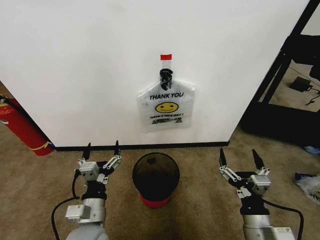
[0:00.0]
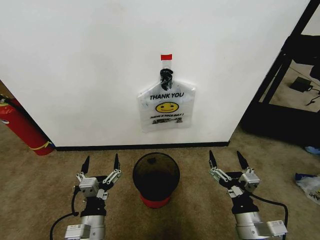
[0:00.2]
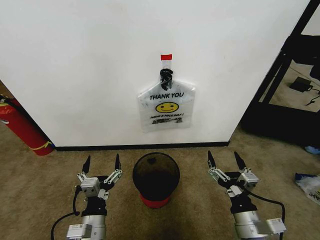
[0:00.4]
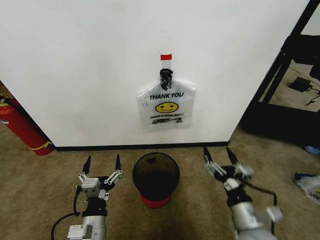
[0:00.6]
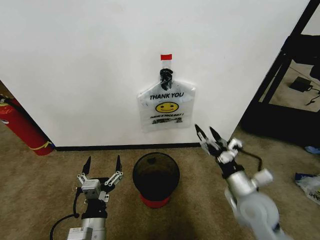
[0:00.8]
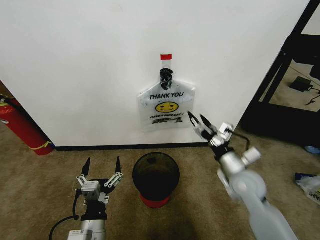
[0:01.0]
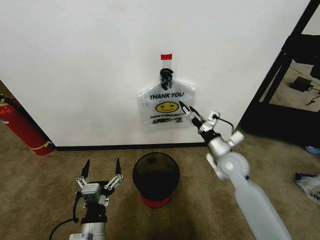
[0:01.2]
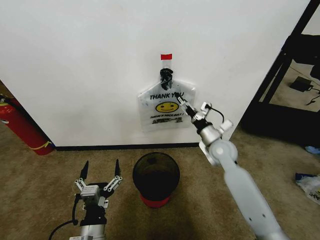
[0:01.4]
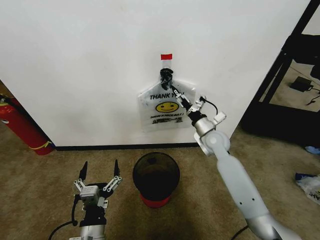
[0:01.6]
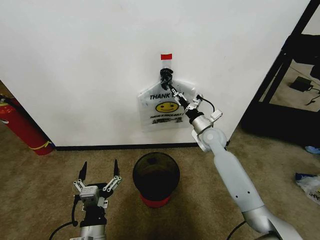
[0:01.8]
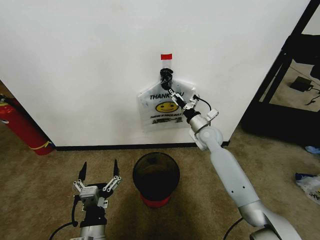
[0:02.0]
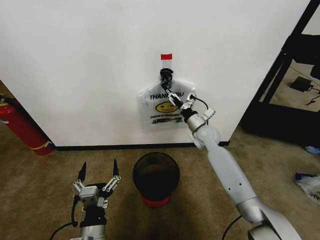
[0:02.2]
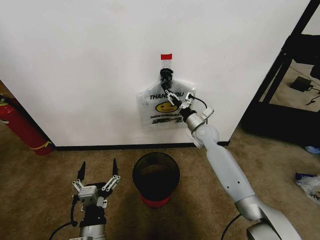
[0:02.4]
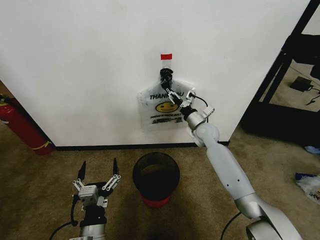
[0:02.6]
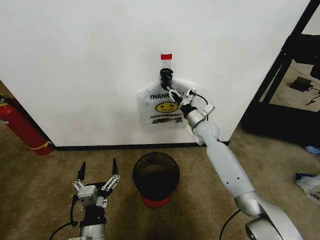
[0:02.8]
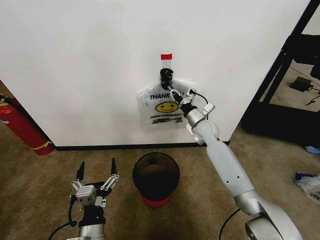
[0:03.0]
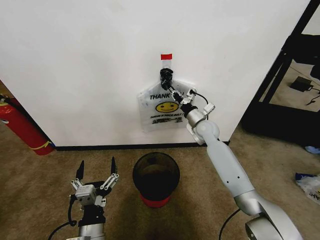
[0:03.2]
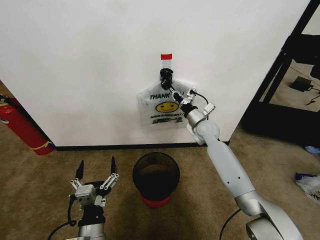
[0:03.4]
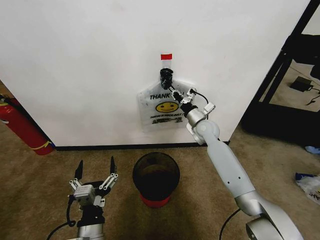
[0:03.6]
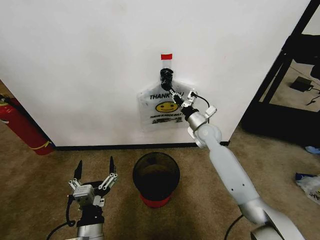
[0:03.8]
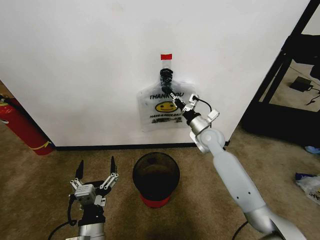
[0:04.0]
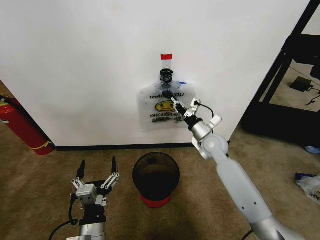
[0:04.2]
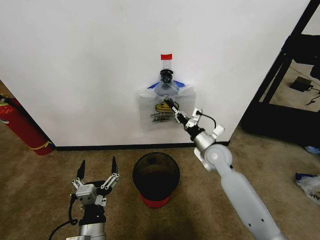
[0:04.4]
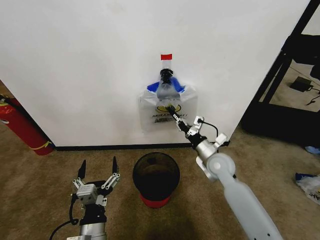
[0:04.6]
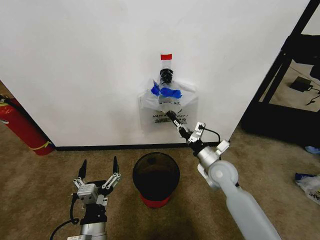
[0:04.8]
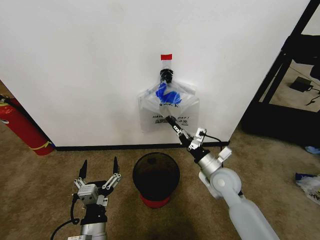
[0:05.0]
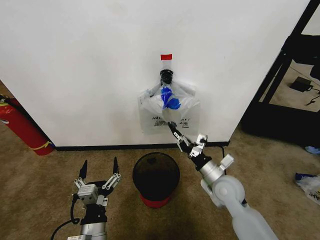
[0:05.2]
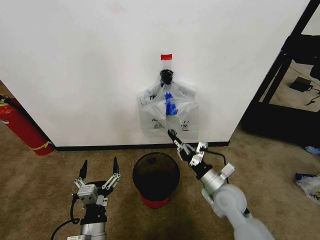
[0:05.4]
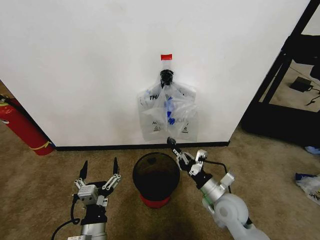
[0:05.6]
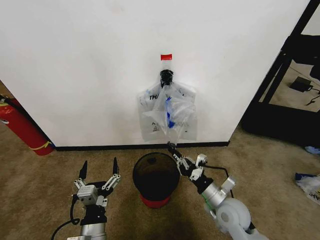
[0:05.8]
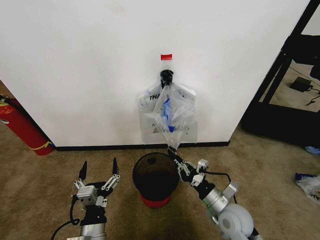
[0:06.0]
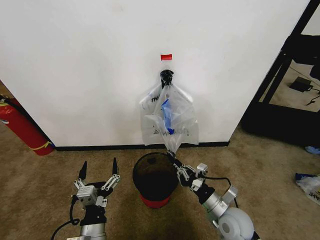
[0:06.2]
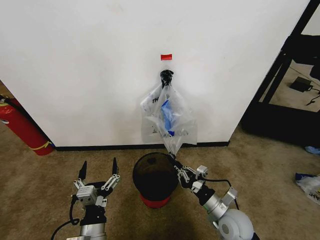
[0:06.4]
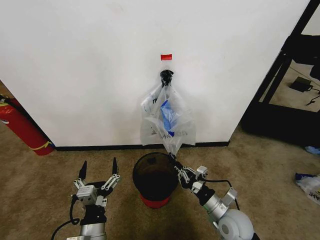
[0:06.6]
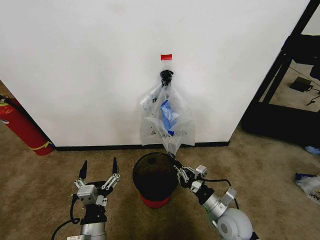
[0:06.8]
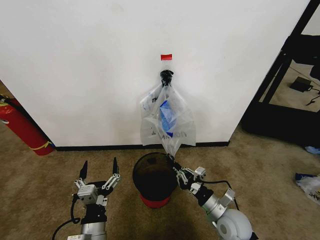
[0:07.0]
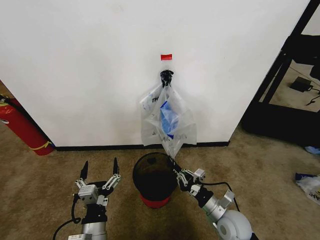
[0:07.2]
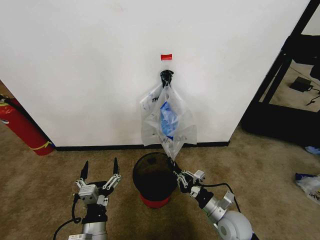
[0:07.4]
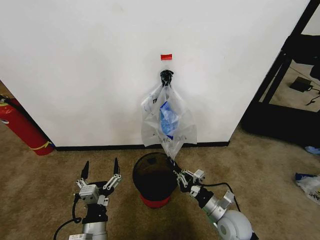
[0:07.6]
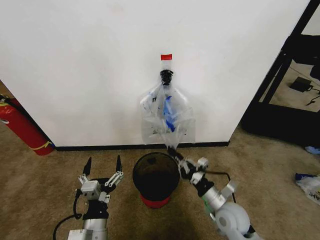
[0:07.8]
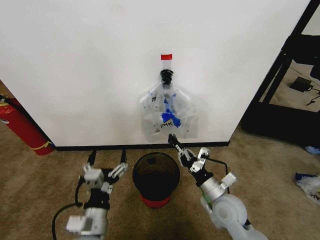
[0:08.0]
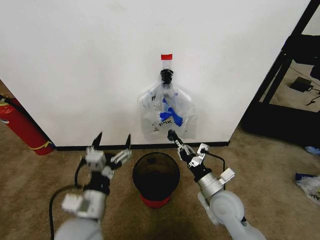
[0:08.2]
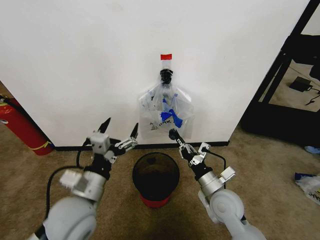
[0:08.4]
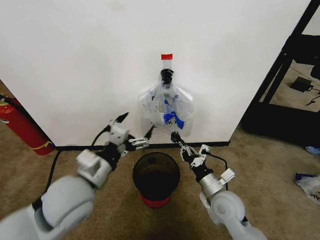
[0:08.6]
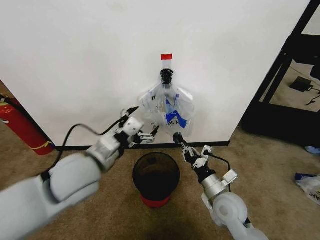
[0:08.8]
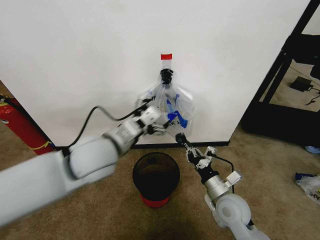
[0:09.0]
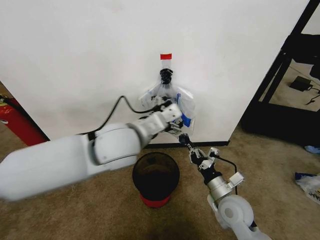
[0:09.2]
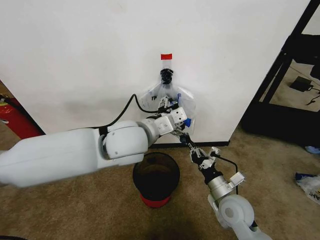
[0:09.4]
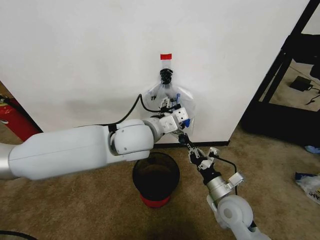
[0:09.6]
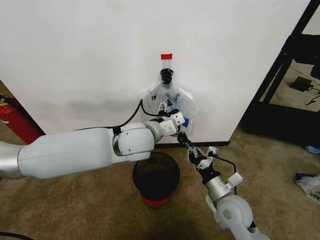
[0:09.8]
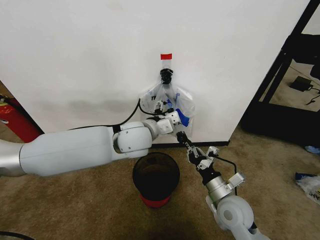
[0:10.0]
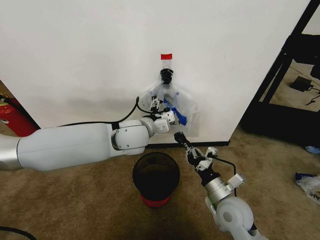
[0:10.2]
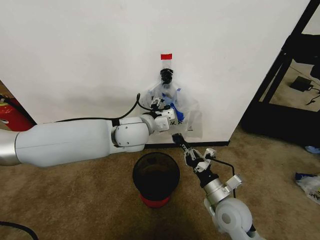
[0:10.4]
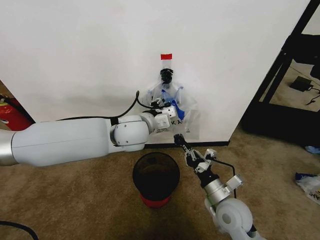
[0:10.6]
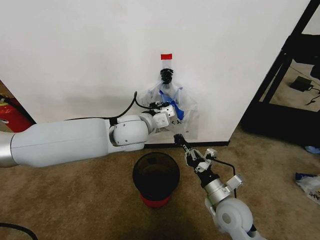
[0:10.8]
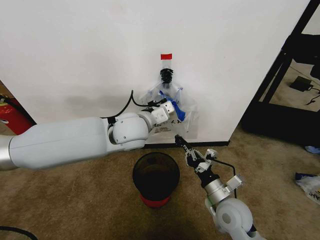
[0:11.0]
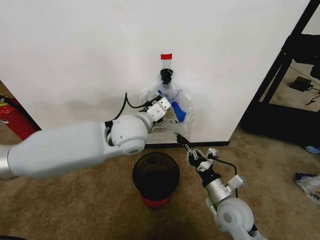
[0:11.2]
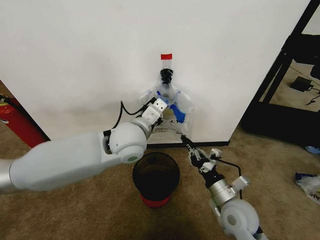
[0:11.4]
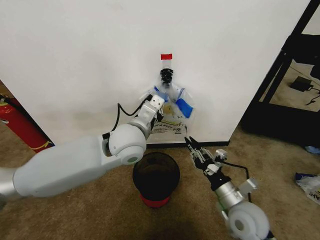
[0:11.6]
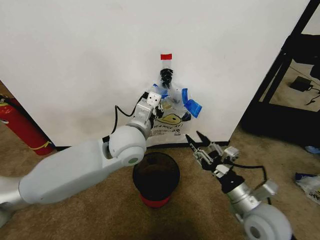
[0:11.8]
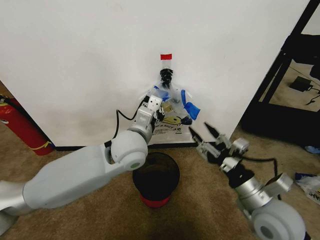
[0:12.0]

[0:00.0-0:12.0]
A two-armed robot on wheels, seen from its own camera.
Task of the whole recording: Pick up the garbage bag from the wall and place it over the trash bin.
0:01.6 to 0:03.0: The right gripper heads forward, covering approximately 5 cm, and closes.
0:03.0 to 0:04.4: The right gripper is displaced backward by approximately 10 cm.
0:04.4 to 0:06.0: The right gripper goes some 20 cm backward.
0:06.0 to 0:07.6: The grippers move only a little.
0:07.6 to 0:09.0: The left gripper moves upward and forward, some 30 cm. Meanwhile the right gripper is displaced upward by some 5 cm.
0:09.0 to 0:10.4: The left gripper shifts roughly 10 cm forward and to the right.
0:10.4 to 0:12.0: The right gripper heads upward and to the right, covering about 10 cm, and opens its fingers, while the left gripper moves approximately 5 cm, and closes.

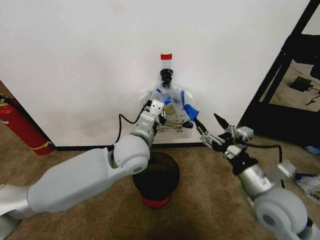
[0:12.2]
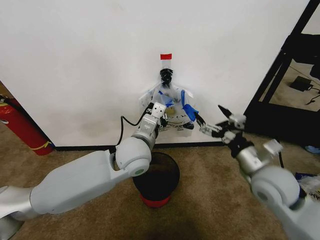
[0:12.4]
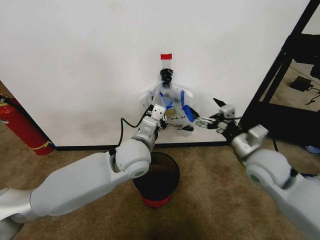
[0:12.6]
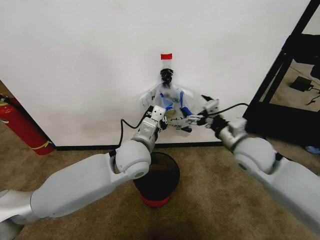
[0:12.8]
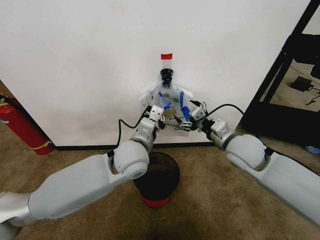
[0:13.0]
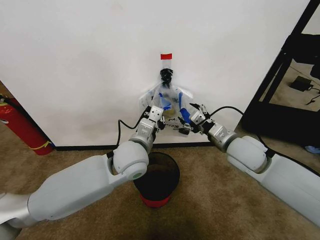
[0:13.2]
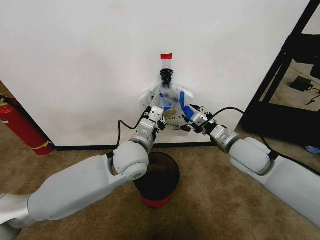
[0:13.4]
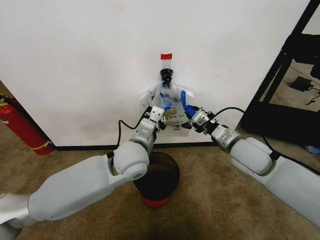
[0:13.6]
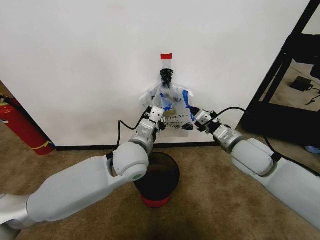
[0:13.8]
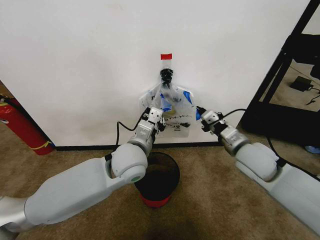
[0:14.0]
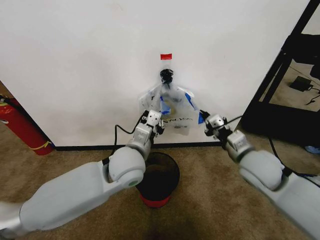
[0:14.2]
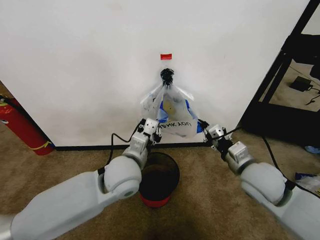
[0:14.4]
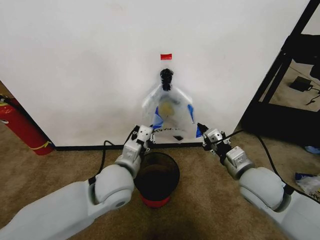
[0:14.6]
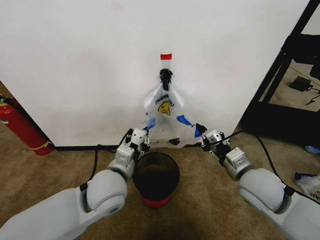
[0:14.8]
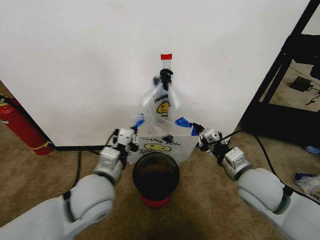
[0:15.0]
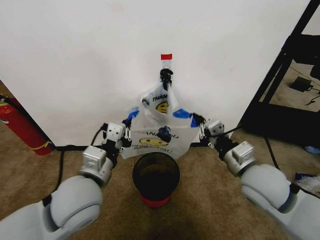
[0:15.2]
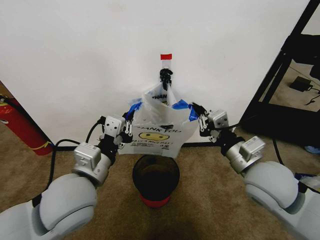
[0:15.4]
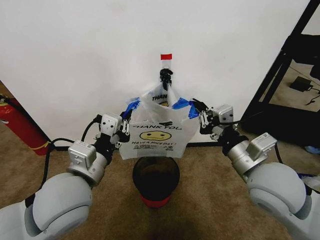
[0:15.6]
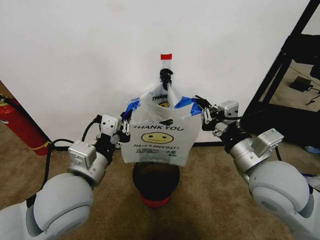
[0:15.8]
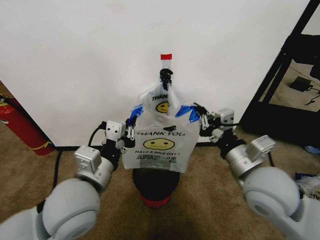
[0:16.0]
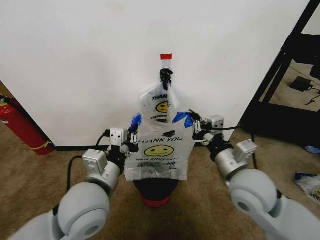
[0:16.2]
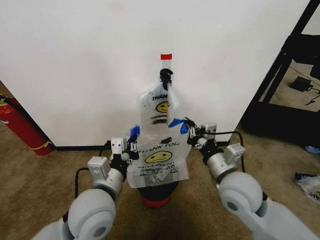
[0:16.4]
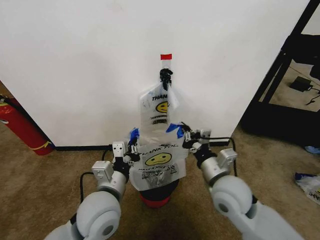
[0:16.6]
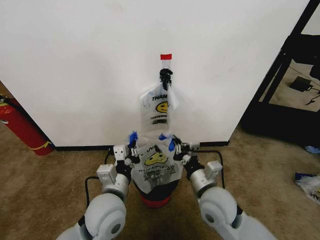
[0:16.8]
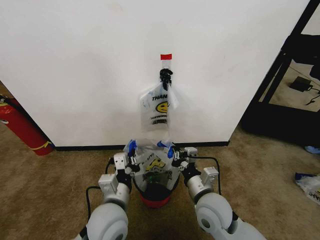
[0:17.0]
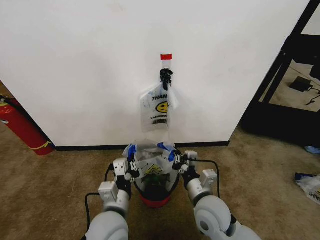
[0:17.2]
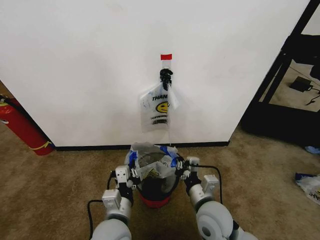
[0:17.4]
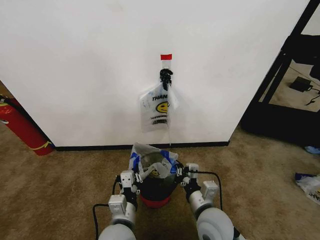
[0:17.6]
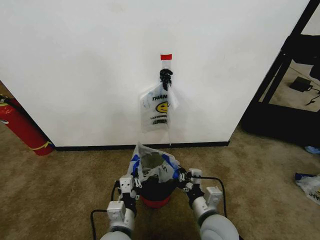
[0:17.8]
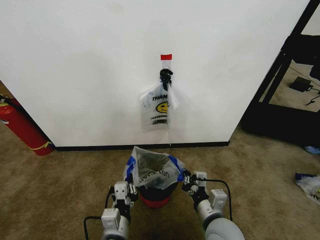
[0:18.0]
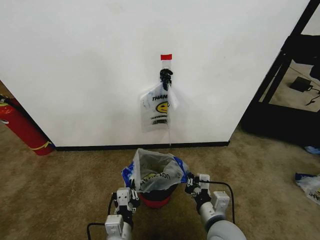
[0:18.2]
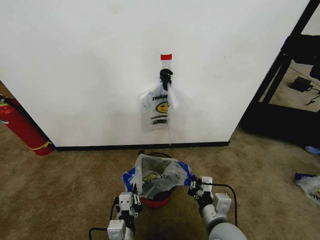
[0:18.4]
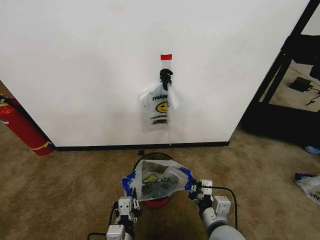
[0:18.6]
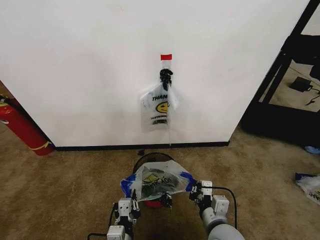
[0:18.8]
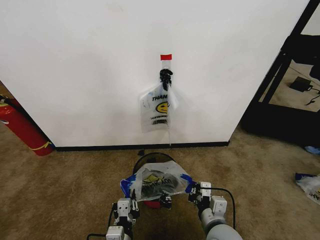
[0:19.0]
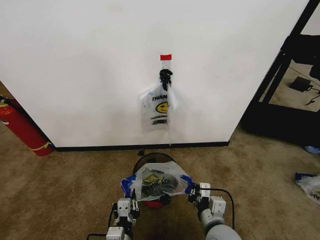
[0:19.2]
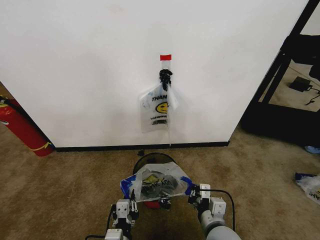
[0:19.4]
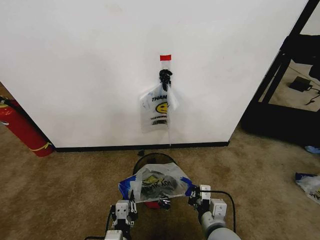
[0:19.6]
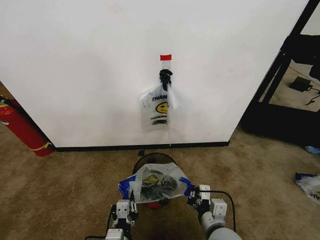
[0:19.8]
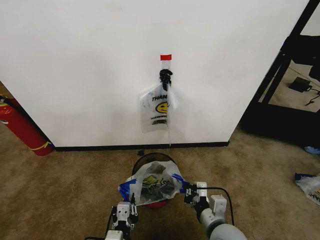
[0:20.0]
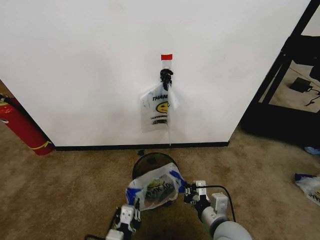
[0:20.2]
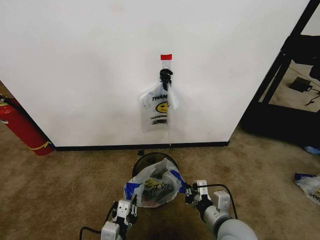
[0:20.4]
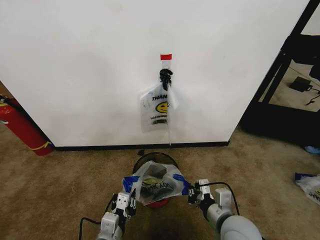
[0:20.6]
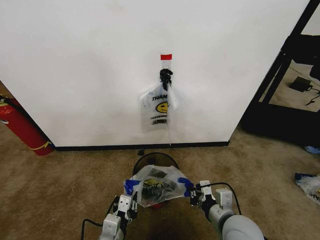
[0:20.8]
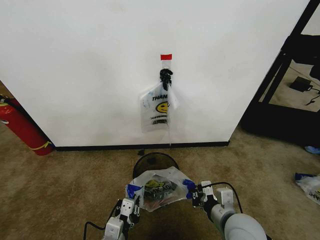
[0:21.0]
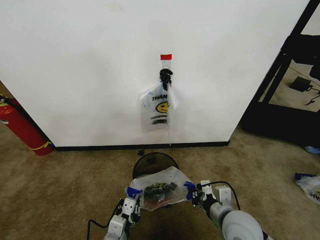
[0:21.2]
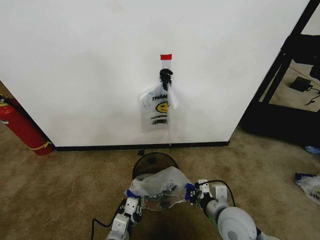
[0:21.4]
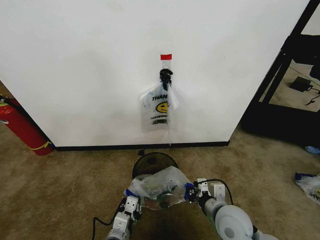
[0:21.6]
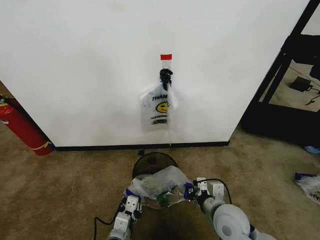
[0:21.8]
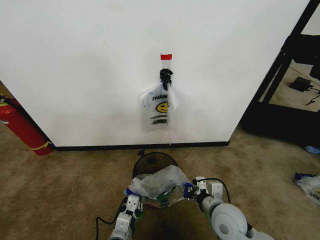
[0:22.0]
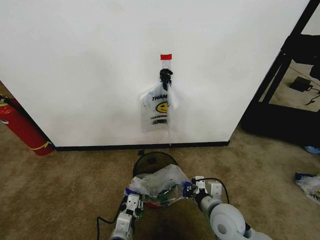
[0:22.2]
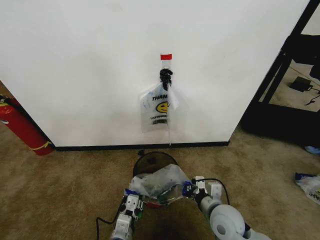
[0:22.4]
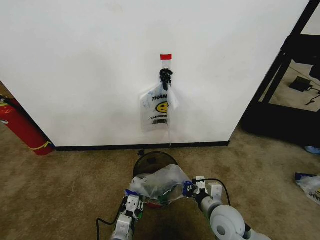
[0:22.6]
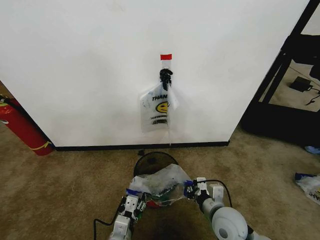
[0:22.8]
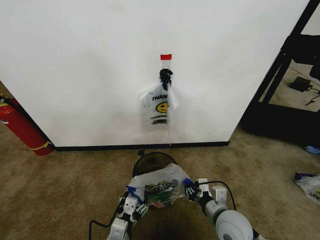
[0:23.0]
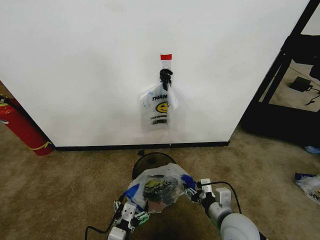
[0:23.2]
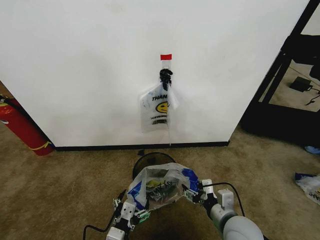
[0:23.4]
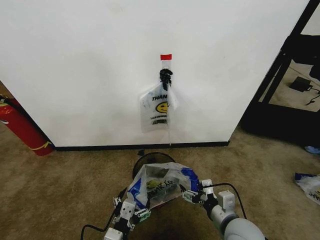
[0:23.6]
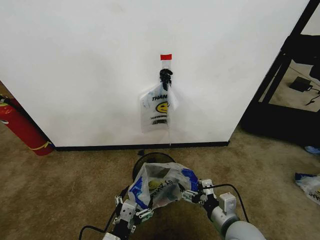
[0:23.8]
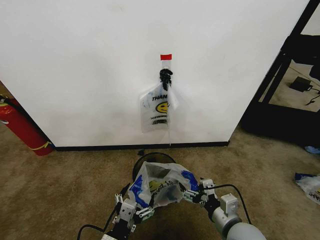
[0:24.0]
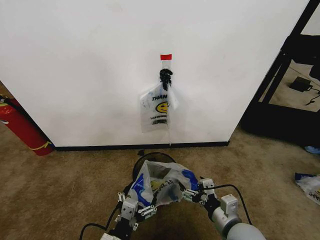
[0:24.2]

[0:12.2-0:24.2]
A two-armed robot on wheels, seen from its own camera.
Task of the whole recording: Pick up the garbage bag from the wall and place it over the trash bin.
0:12.2 to 0:13.8: The right gripper shifts roughly 15 cm forward, and closes.
0:13.8 to 0:15.2: The left gripper travels backward and to the left by approximately 15 cm. The right gripper shifts approximately 10 cm backward.
0:15.2 to 0:16.6: The right gripper goes roughly 10 cm to the left and downward, while the left gripper moves downward, roughly 5 cm.
0:16.6 to 0:18.2: The right gripper goes approximately 10 cm backward and downward. Meanwhile the left gripper heads downward and backward, covering about 15 cm.
0:18.2 to 0:19.8: There are only small adjustments of the grippers.
0:19.8 to 0:21.2: The right gripper moves roughly 5 cm; the left gripper changes place by about 5 cm.
0:21.2 to 0:22.6: The right gripper shifts about 5 cm downward.
0:22.6 to 0:24.2: The left gripper shifts roughly 5 cm upward, and opens its fingers, while the right gripper heads backward, covering roughly 5 cm, and opens up.
